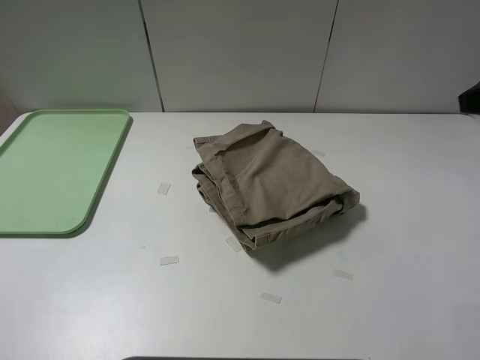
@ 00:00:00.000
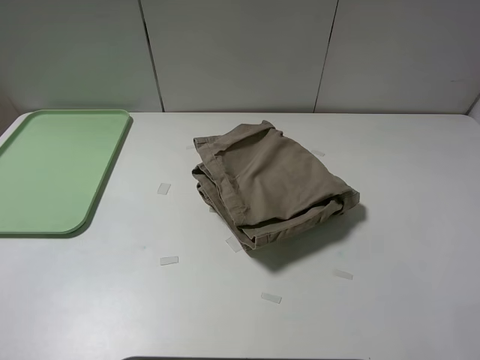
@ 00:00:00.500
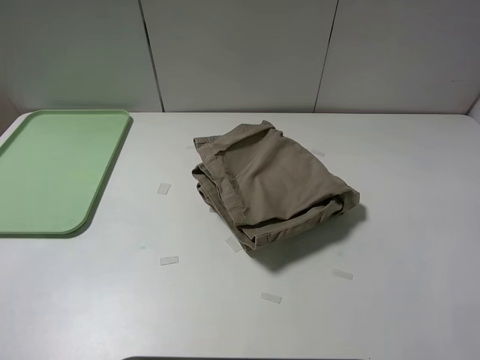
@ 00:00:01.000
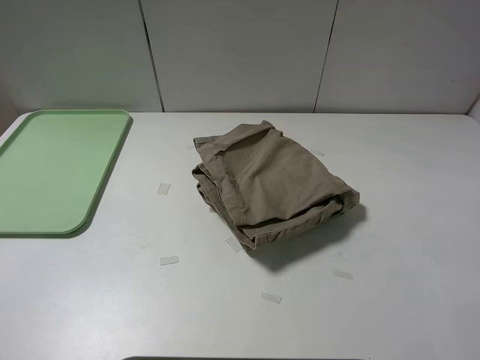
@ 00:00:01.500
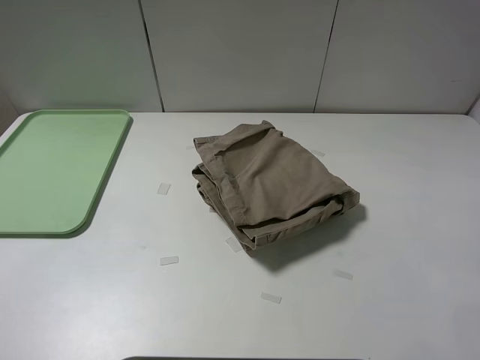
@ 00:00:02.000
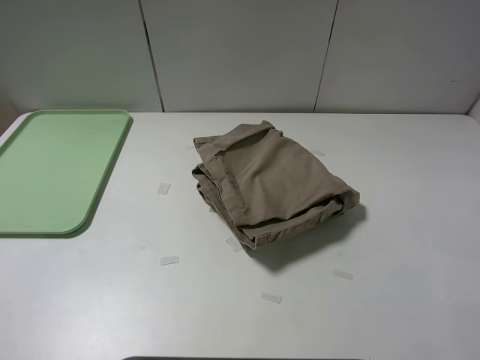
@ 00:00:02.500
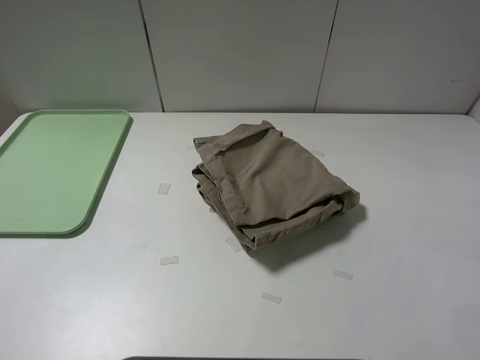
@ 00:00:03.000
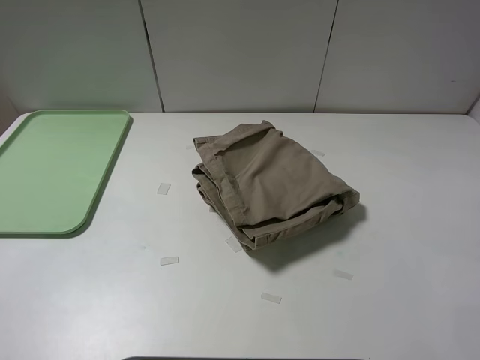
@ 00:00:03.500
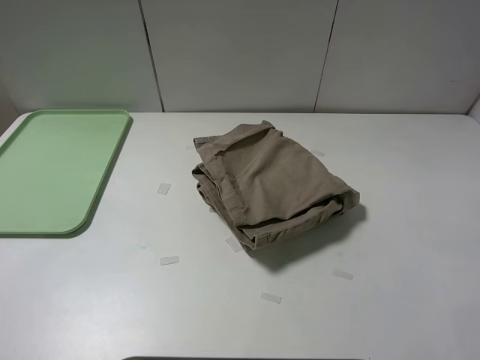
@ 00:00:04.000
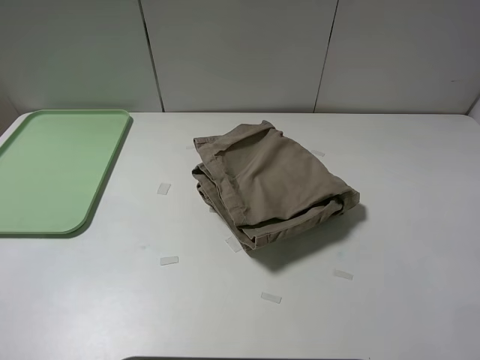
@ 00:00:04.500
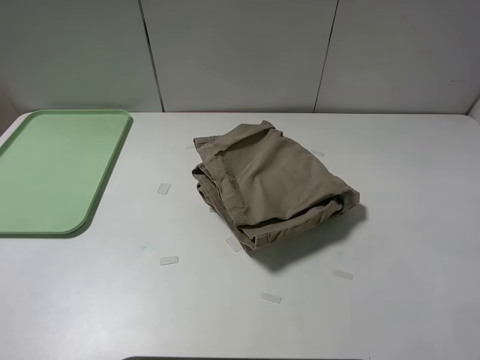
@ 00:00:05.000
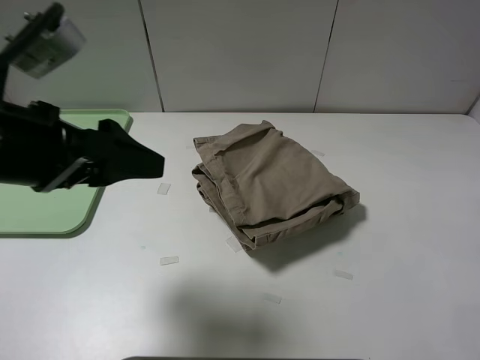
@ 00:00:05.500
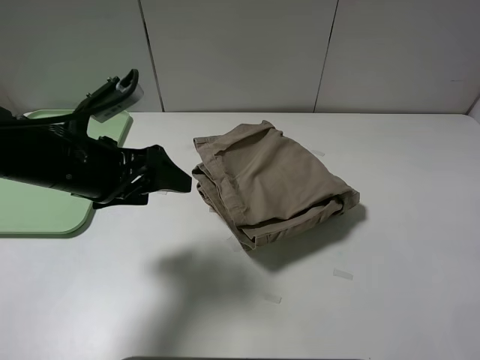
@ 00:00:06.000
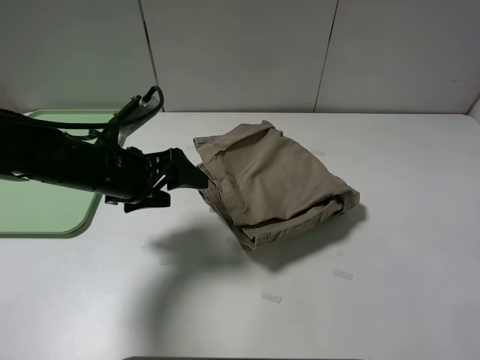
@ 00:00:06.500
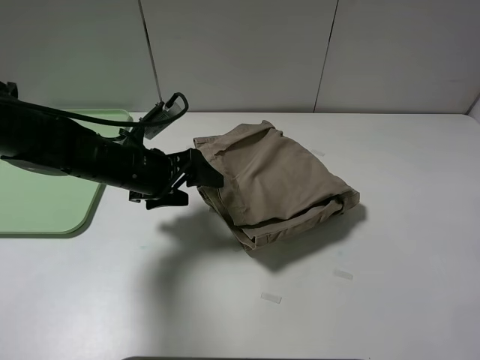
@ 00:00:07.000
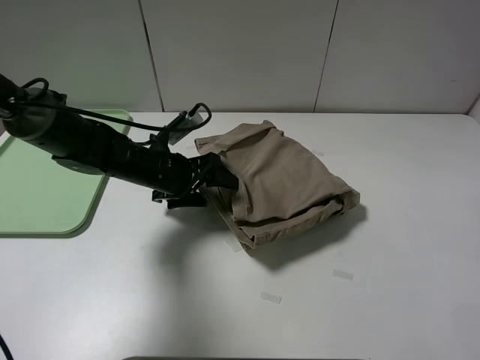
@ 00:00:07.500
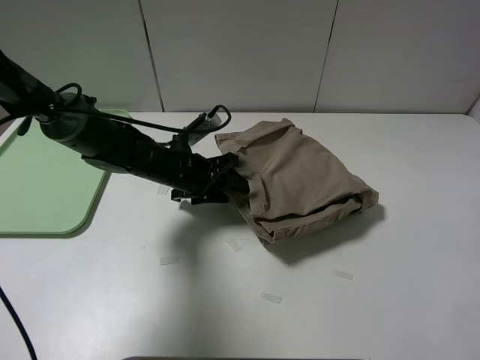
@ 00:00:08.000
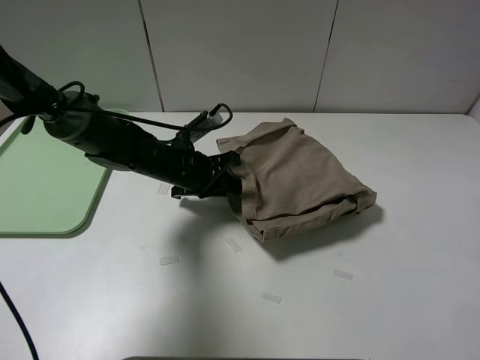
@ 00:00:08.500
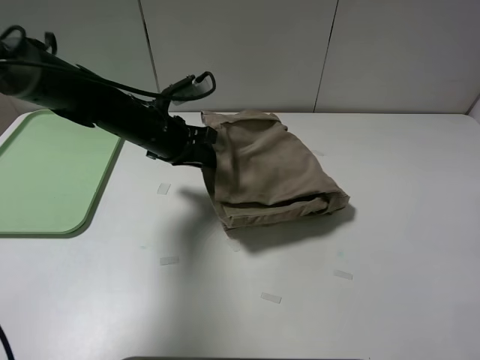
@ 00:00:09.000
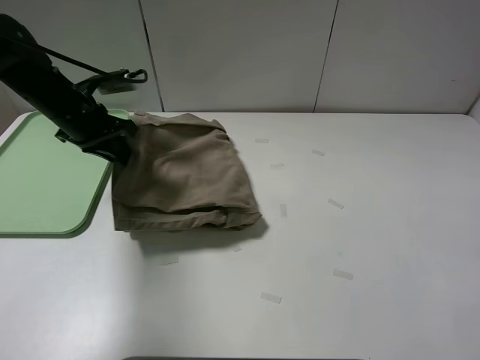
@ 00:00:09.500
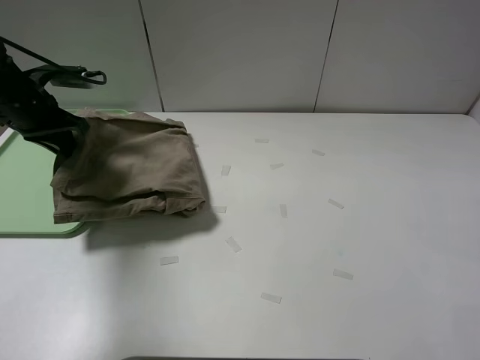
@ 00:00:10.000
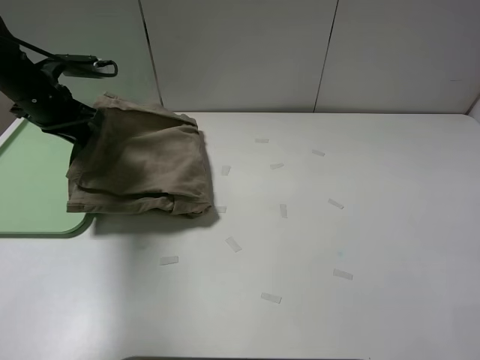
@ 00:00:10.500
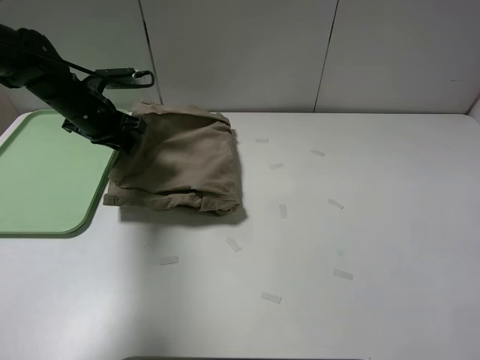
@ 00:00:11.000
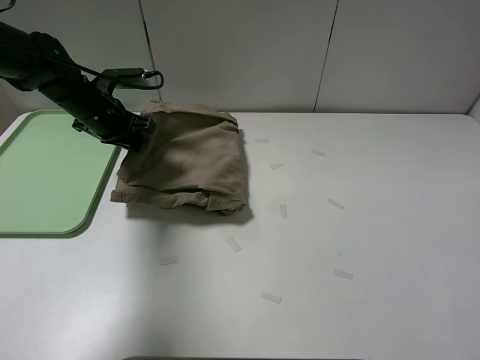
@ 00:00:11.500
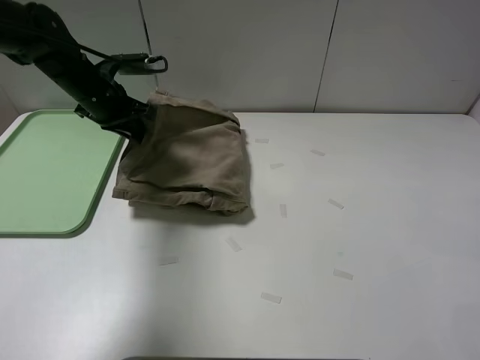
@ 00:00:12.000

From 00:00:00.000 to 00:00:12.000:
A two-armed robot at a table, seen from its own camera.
Task of the whole recording: fold the khaki jeans in half with two grippers, then fold them in half again, and use the left claw to place the folded fold khaki jeans on the tray.
Step, from 00:00:00.000 to 00:00:08.500: Grasp the khaki trousers with the left gripper.
From 00:00:04.000 to 00:00:06.000: The left gripper heads forward, to the right and downward, covering some 30 cm.
From 00:00:06.000 to 00:00:08.000: The left gripper moves downward, forward and to the right, about 20 cm, and closes up.
From 00:00:08.000 to 00:00:10.000: The left gripper goes about 25 cm to the left and upward, and closes its fingers.
From 00:00:10.000 to 00:00:12.000: The left gripper travels to the right by some 10 cm.

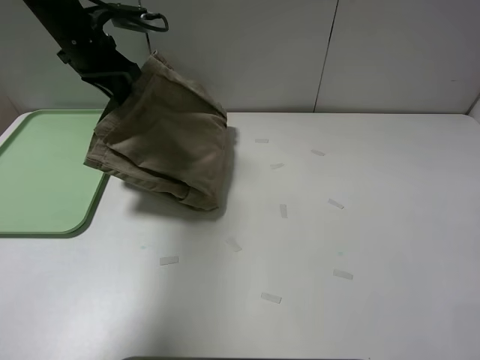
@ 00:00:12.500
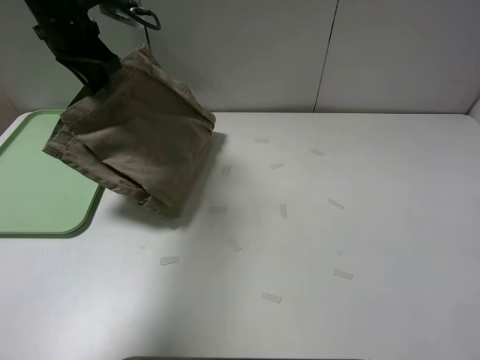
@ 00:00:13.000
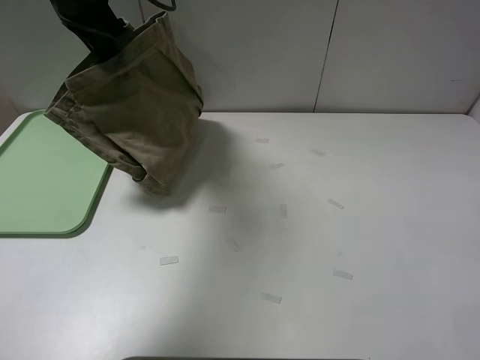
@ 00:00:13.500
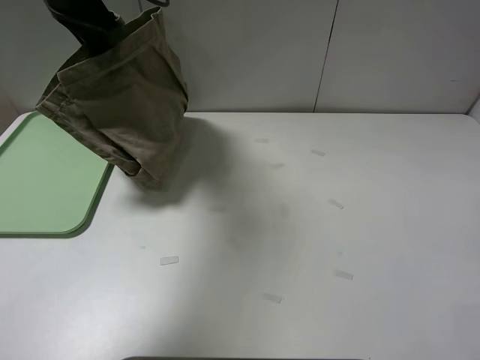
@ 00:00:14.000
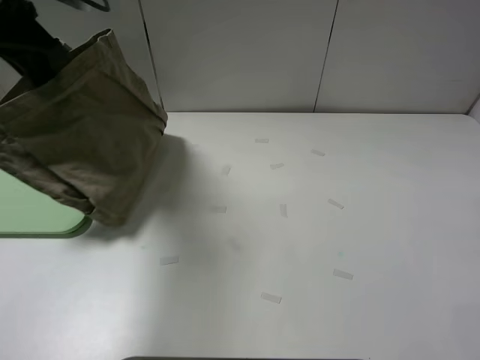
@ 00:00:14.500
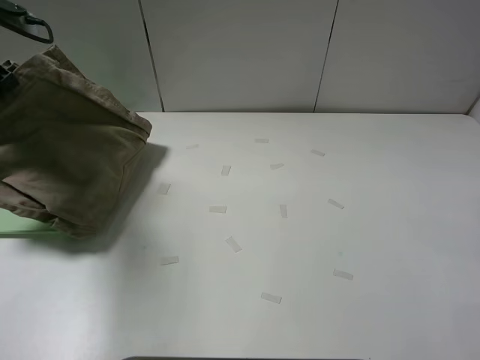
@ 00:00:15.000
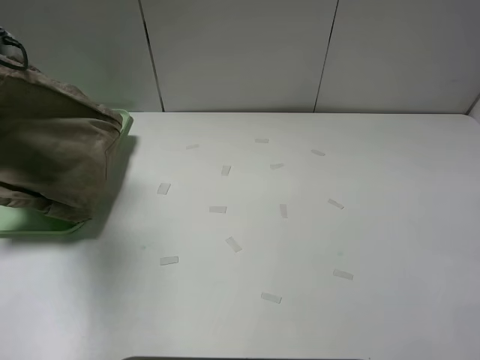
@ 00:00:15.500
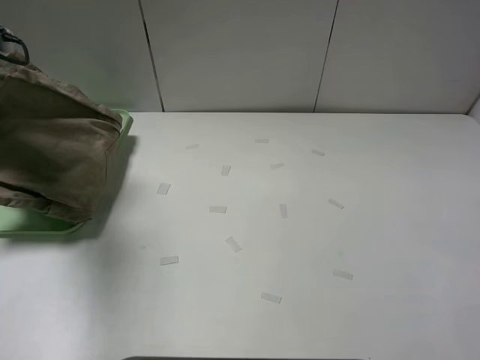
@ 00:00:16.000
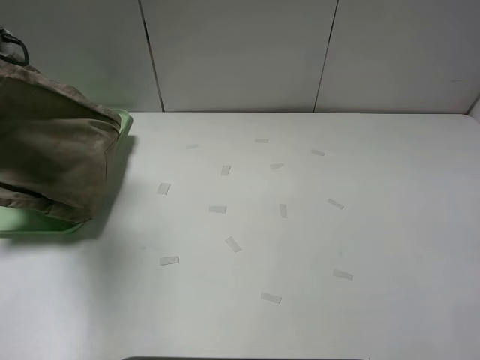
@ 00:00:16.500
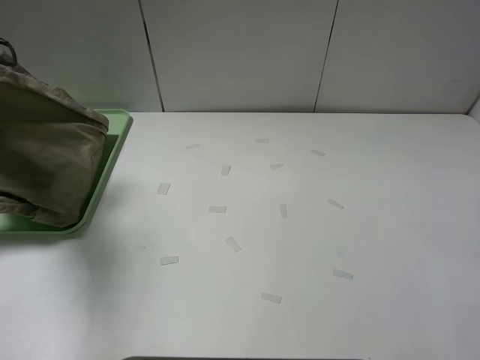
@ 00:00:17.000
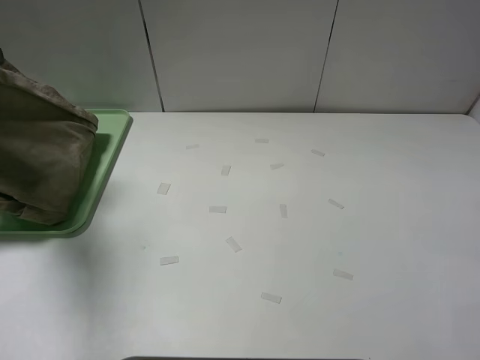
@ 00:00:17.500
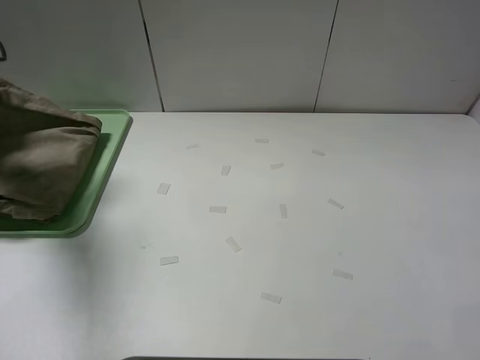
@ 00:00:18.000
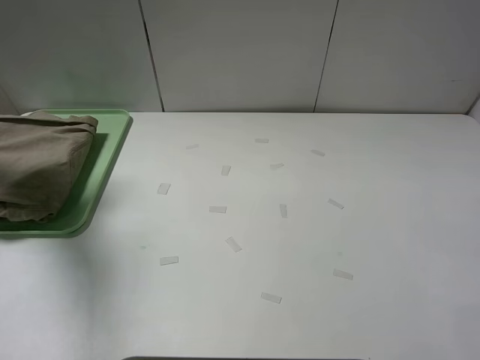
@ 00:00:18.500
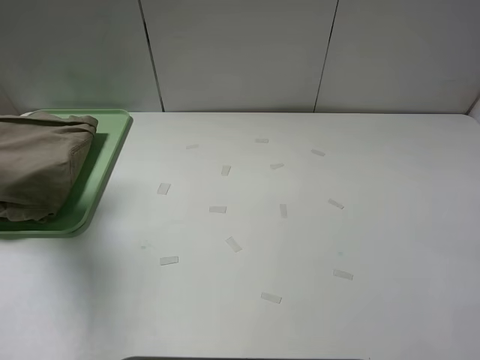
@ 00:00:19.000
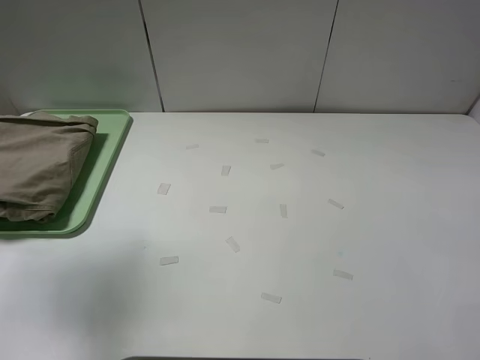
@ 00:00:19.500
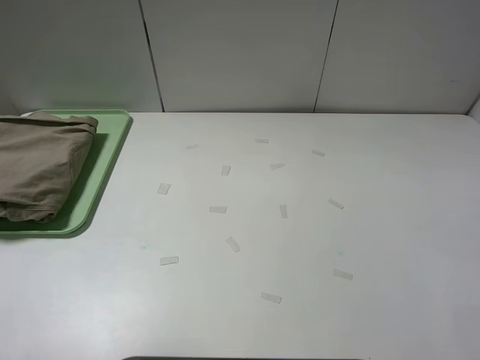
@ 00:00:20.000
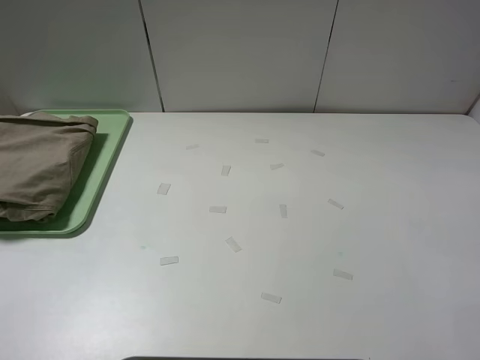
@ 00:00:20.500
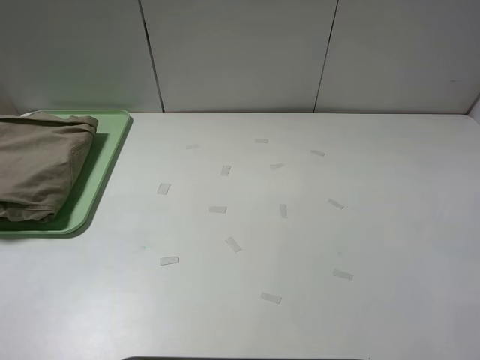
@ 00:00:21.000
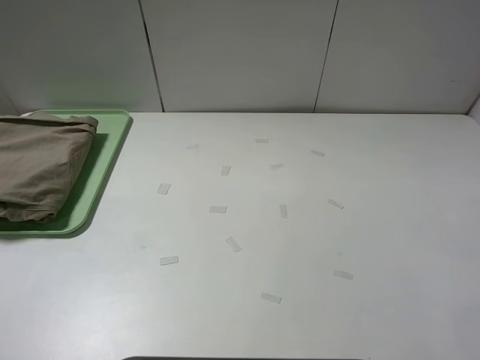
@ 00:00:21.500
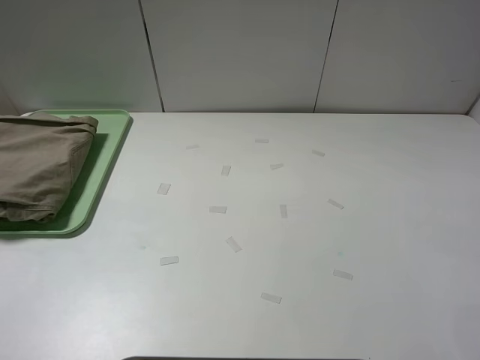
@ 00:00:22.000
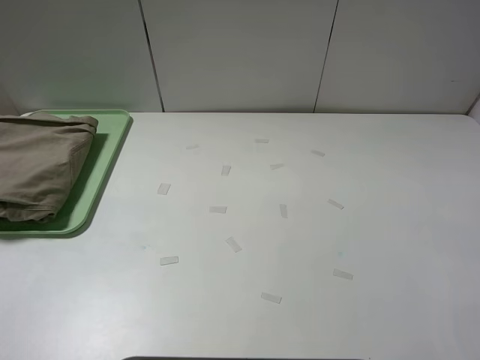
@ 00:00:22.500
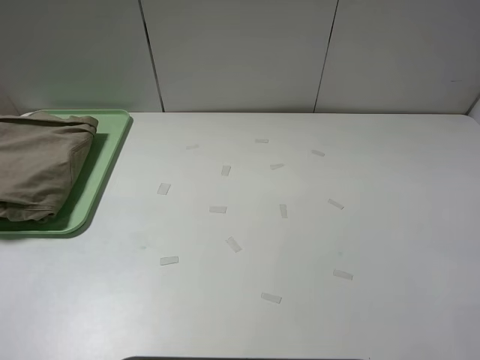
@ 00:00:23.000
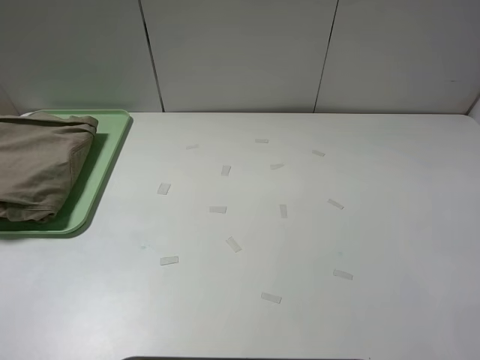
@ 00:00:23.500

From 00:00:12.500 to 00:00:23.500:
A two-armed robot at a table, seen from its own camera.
Task of the whole recording: fold the khaki jeans in half with two grippers, then fold them in half again, and use the left claw to place the folded fold khaki jeans on the tray.
Step, from 00:00:12.500 to 00:00:18.000: Place the folded khaki trousers on the green tray with the left gripper.
From 00:00:12.500 to 00:00:14.500: The left gripper moves upward, backward and to the left, about 10 cm.
From 00:00:14.500 to 00:00:16.000: The left gripper travels to the left by about 10 cm.
From 00:00:16.000 to 00:00:18.000: The left gripper opens.
From 00:00:18.000 to 00:00:20.000: The left gripper moves backward, roughly 30 cm.
From 00:00:21.500 to 00:00:23.500: Both grippers stay about where they are.
